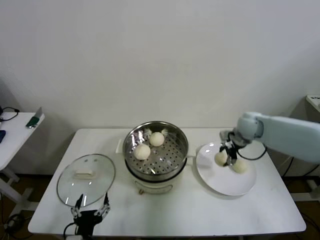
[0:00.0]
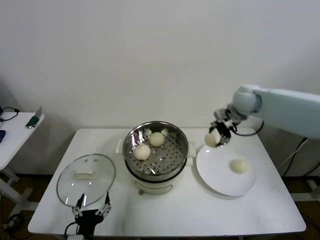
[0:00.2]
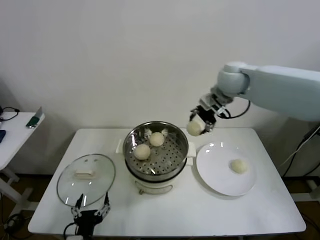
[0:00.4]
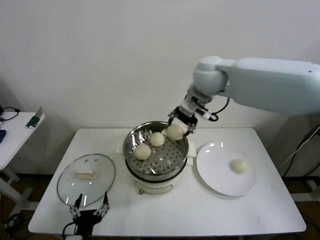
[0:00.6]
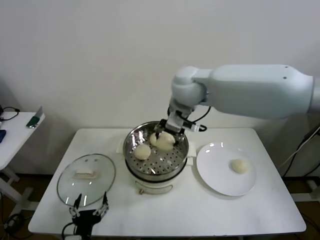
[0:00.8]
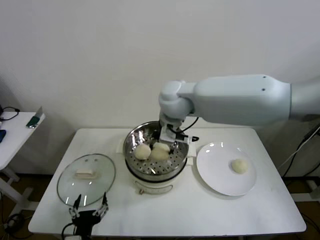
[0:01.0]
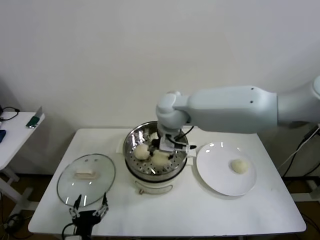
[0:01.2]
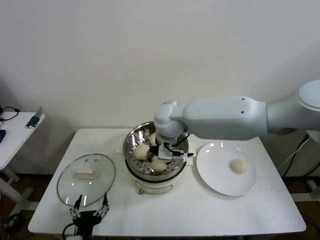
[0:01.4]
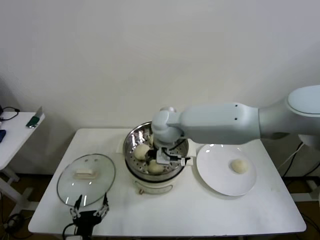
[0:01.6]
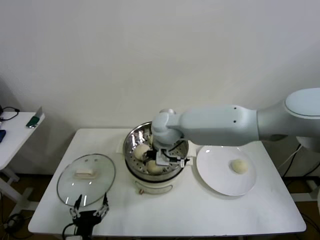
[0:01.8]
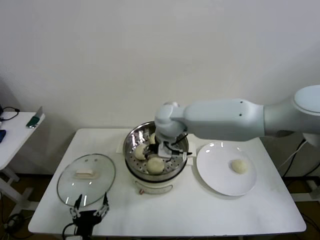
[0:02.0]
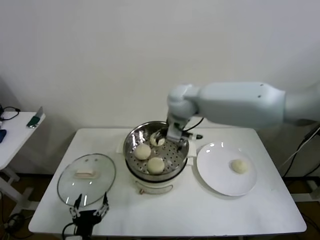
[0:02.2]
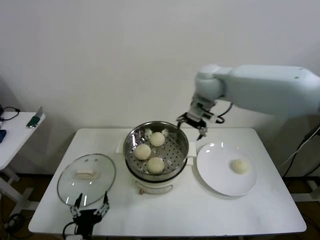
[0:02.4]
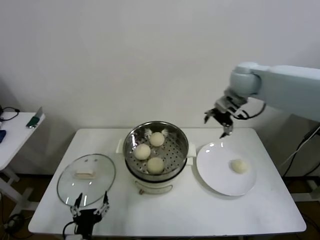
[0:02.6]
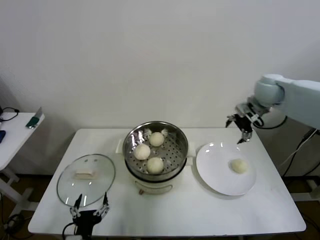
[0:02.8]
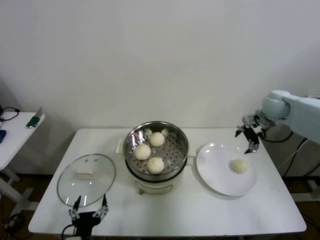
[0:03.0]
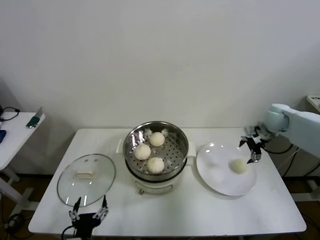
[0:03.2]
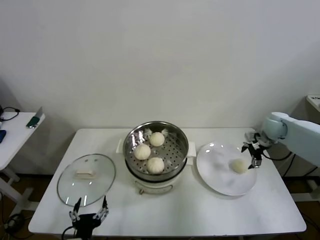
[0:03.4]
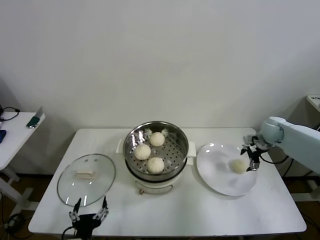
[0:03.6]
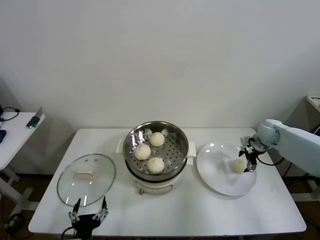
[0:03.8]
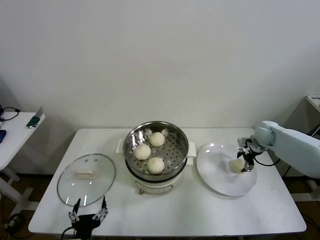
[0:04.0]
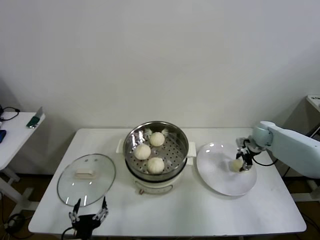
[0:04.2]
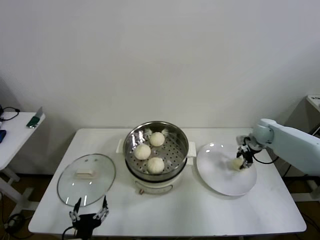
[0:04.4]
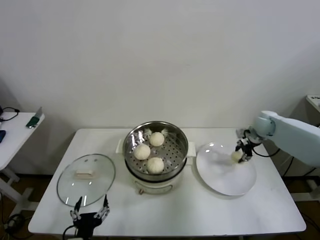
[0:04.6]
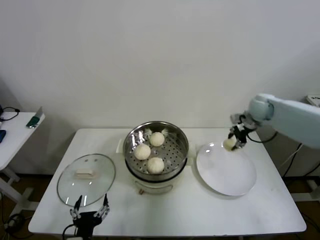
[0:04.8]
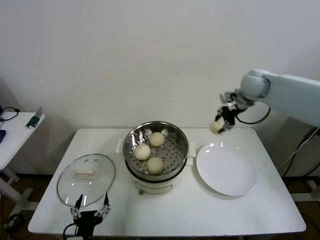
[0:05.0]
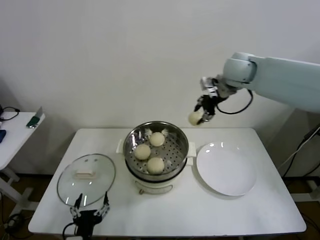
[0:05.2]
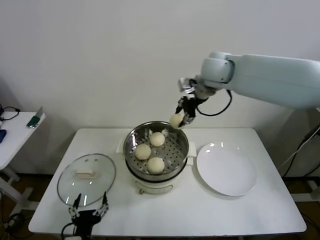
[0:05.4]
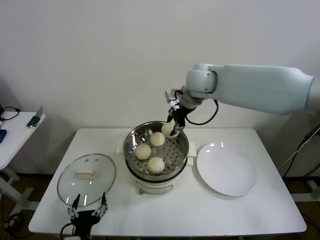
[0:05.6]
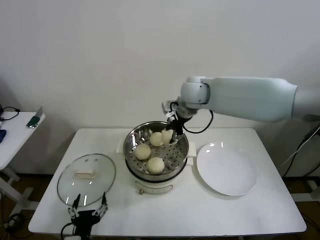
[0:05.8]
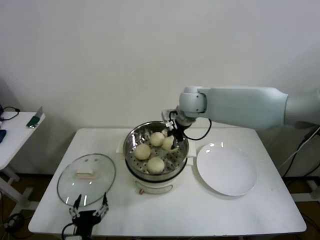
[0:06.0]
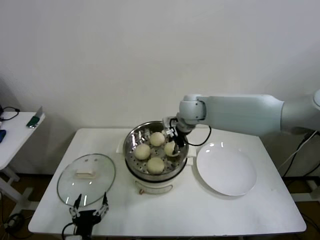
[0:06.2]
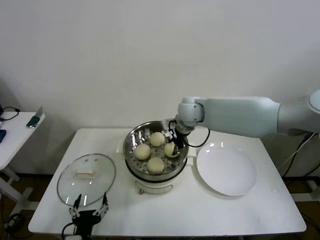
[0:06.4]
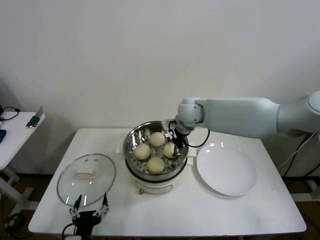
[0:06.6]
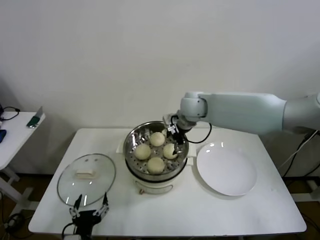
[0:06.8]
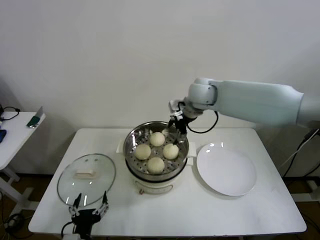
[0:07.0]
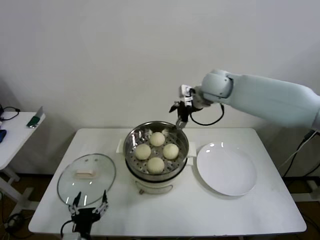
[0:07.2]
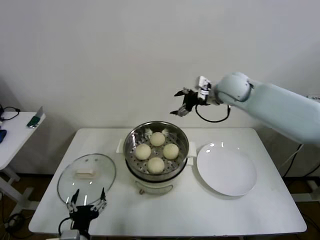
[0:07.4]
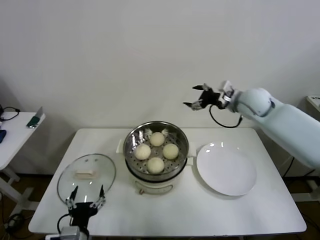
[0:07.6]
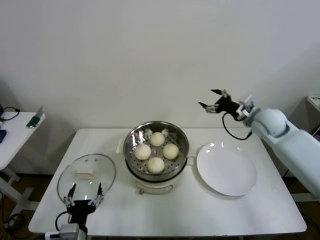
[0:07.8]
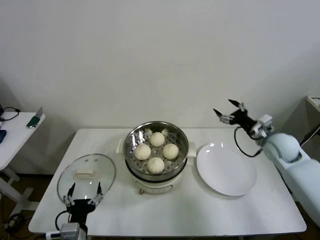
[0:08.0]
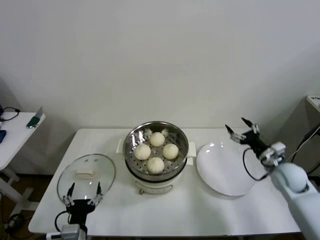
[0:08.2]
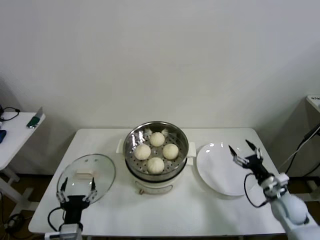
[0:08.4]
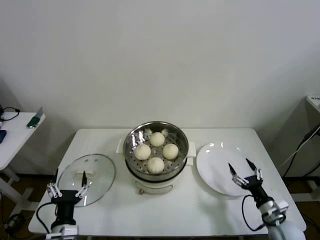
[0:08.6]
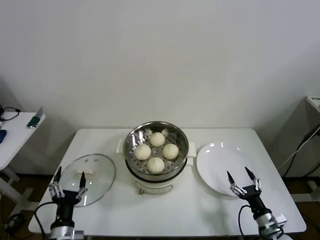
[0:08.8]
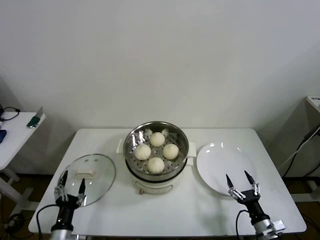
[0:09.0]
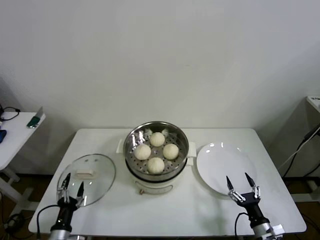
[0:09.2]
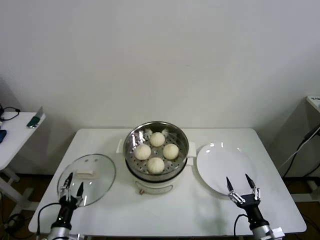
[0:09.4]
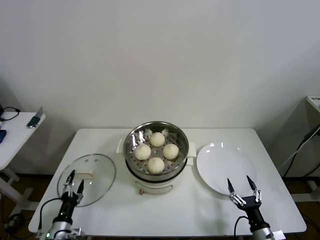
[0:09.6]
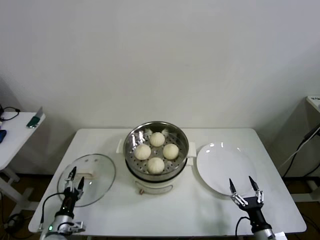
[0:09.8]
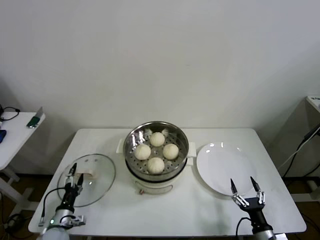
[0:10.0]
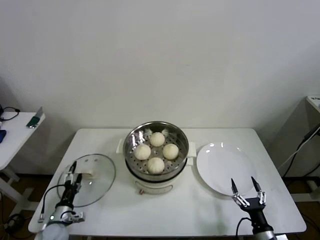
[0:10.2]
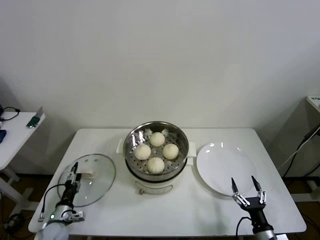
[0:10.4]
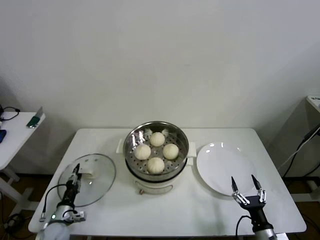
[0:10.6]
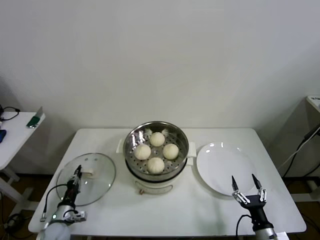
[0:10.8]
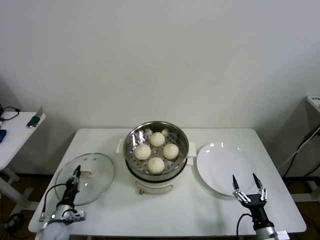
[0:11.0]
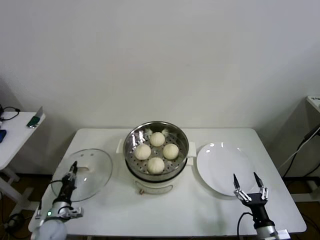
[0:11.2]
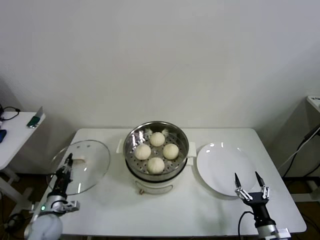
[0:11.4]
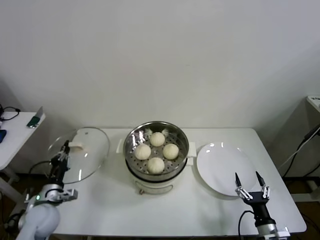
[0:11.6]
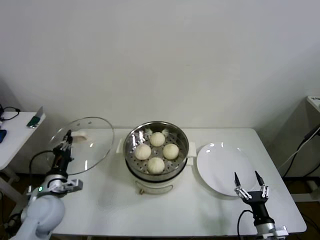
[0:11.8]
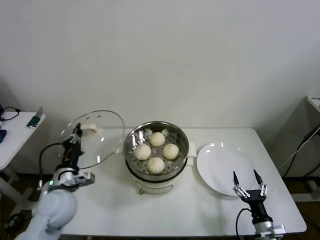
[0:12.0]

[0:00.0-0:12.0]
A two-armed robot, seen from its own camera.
Step, 0:00.0 to 0:01.6: Place the baozi on the steamer with right gripper.
Step, 0:01.8 to 0:04.2: Grasp the baozi in the plate with right gripper.
Step, 0:04.4 to 0:06.6: Place the baozi on the steamer with right gripper.
Step, 0:06.8 to 0:10.8: Grasp the pot lid with left gripper.
0:00.0 to 0:01.6: The right gripper is displaced to the left by approximately 30 cm.
0:01.6 to 0:03.0: The right gripper is displaced to the right by roughly 40 cm, and opens up.
0:03.0 to 0:04.4: The right gripper heads downward, covering approximately 15 cm, and closes.
0:04.4 to 0:06.0: The right gripper heads to the left and upward, covering approximately 35 cm.
0:06.0 to 0:07.6: The right gripper goes roughly 20 cm to the right, and opens.
0:07.6 to 0:09.0: The right gripper is displaced downward and backward by some 50 cm; the left gripper travels to the left and downward by approximately 10 cm.
0:09.0 to 0:10.4: The left gripper moves forward, to the left and downward, approximately 15 cm.
0:10.4 to 0:12.0: The left gripper is displaced upward by some 20 cm, and closes its fingers.

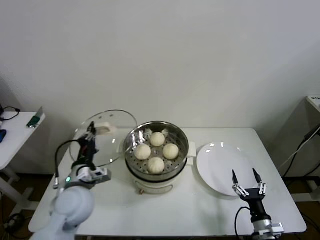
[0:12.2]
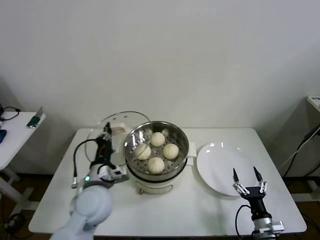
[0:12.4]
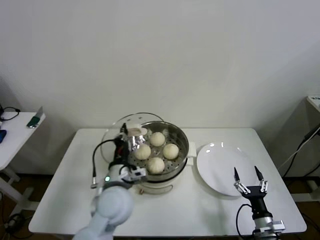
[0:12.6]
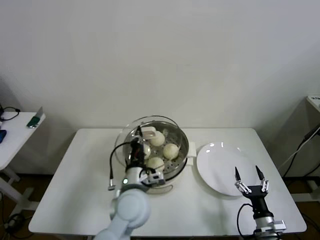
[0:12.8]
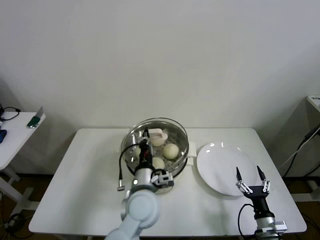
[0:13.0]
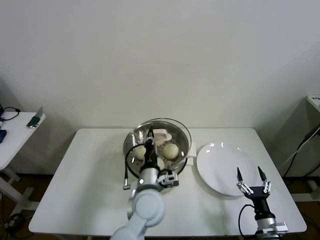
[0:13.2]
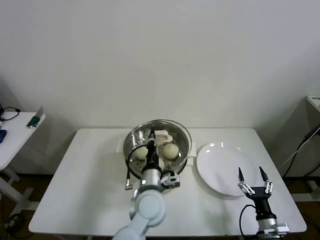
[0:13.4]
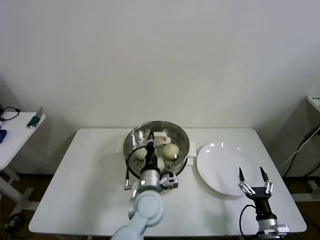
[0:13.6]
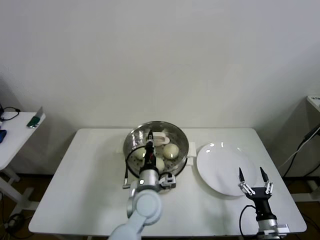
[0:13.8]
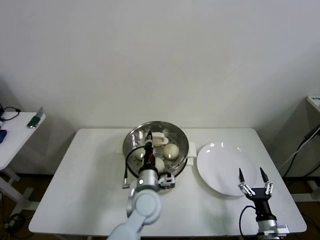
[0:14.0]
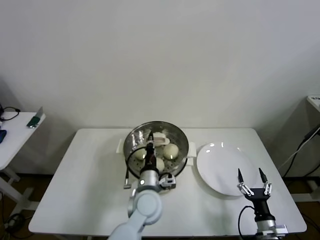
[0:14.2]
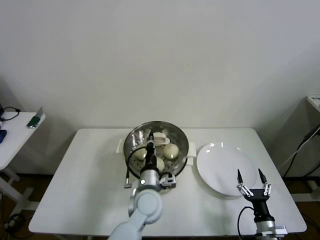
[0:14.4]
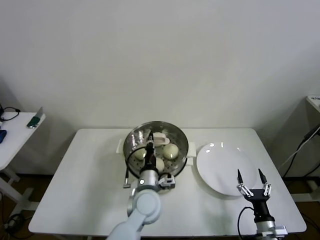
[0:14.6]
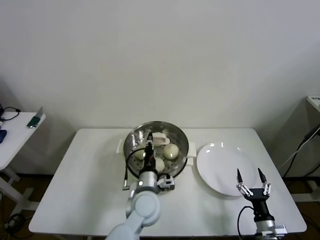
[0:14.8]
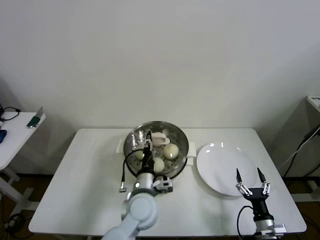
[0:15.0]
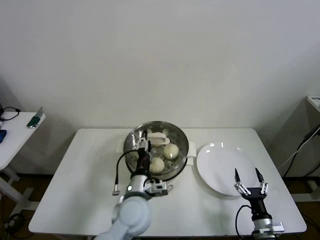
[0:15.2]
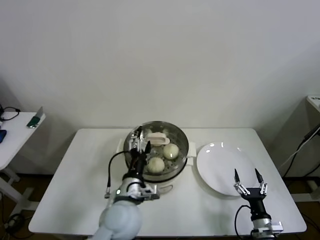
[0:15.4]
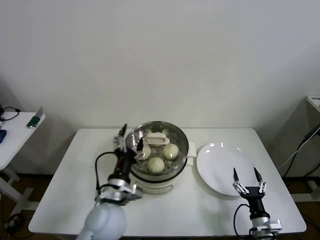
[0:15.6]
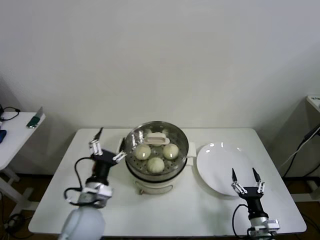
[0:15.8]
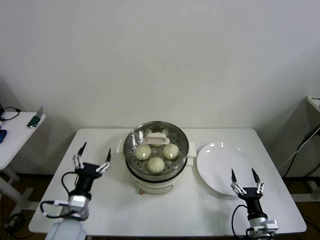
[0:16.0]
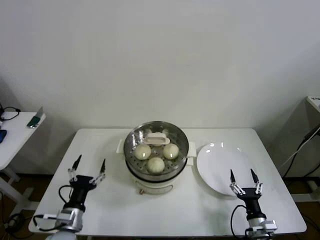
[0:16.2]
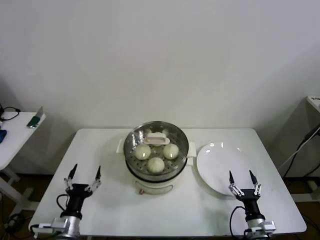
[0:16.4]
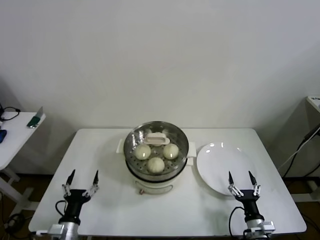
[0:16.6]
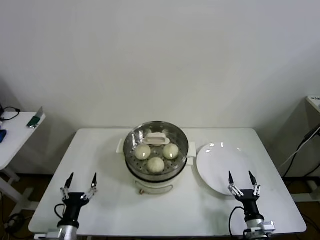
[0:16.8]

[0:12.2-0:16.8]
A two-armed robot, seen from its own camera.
Step, 0:12.2 to 0:14.8: Place the pot lid on the steamer with left gripper.
0:12.2 to 0:13.8: The left gripper travels to the right by roughly 20 cm.
0:13.8 to 0:15.2: The left gripper opens its fingers.
0:15.2 to 0:16.8: The left gripper travels to the left, downward and backward by approximately 30 cm, and opens.

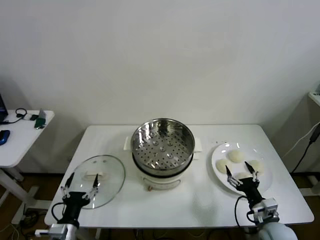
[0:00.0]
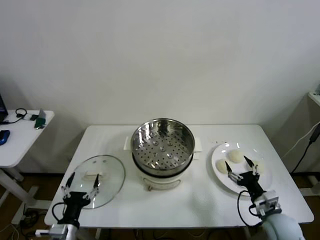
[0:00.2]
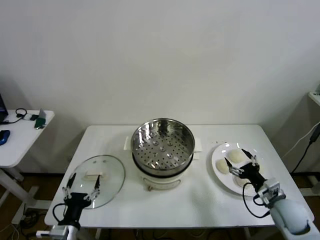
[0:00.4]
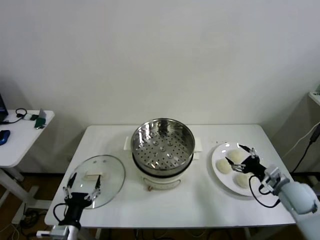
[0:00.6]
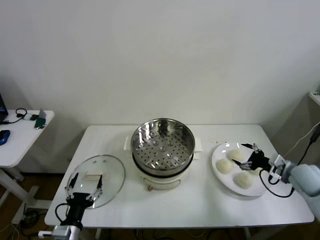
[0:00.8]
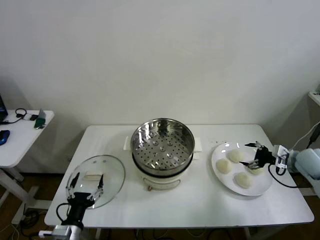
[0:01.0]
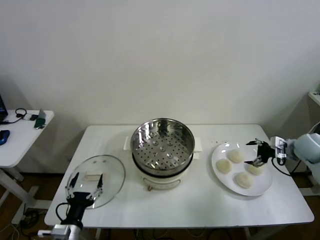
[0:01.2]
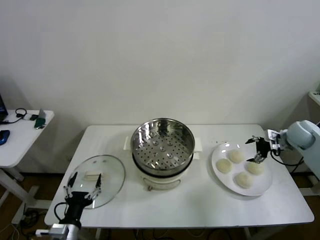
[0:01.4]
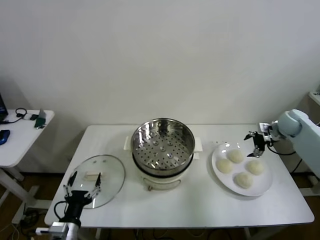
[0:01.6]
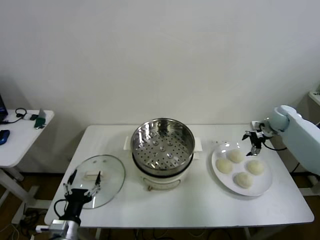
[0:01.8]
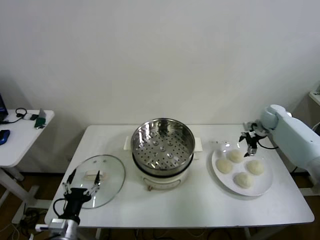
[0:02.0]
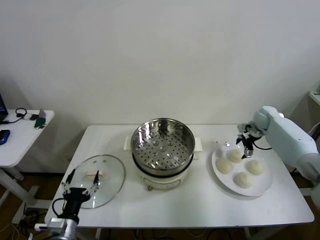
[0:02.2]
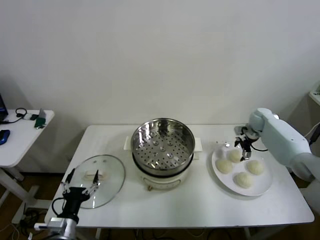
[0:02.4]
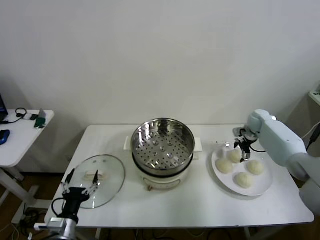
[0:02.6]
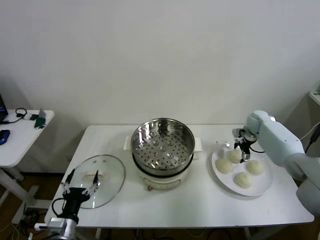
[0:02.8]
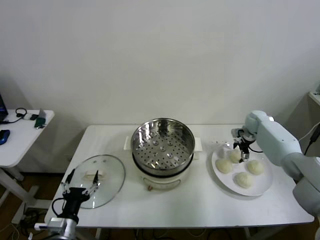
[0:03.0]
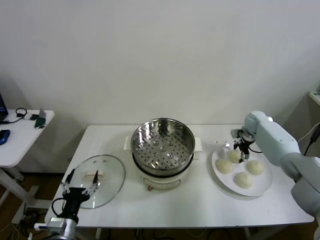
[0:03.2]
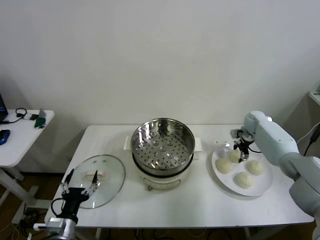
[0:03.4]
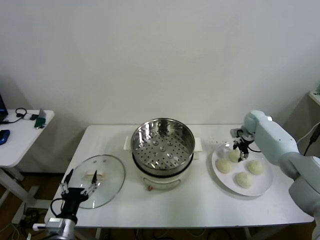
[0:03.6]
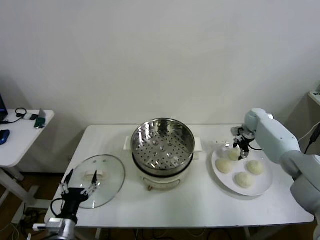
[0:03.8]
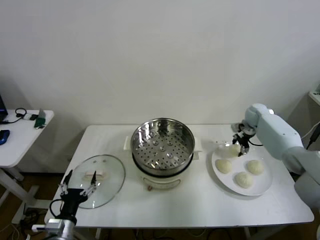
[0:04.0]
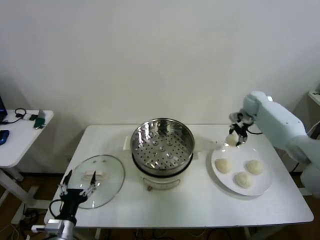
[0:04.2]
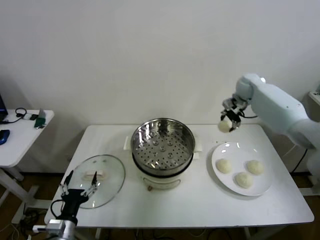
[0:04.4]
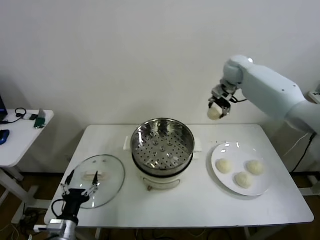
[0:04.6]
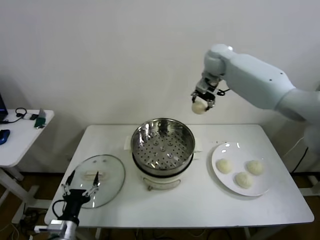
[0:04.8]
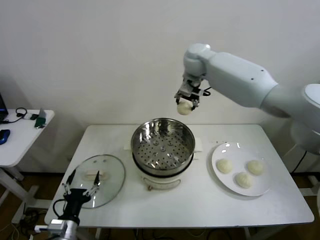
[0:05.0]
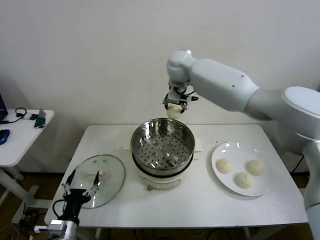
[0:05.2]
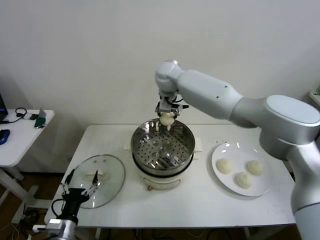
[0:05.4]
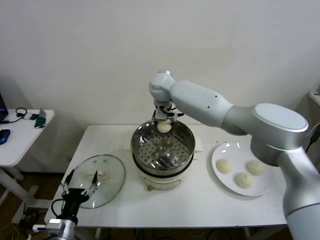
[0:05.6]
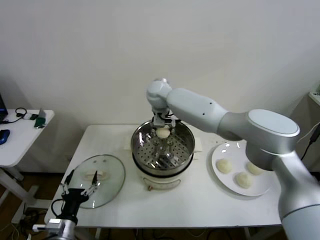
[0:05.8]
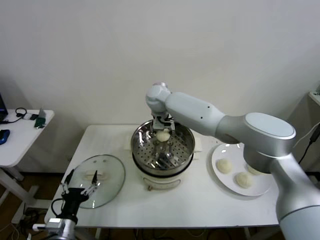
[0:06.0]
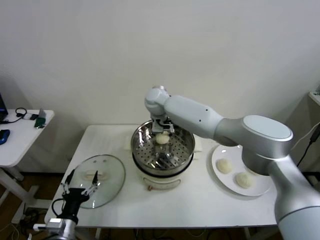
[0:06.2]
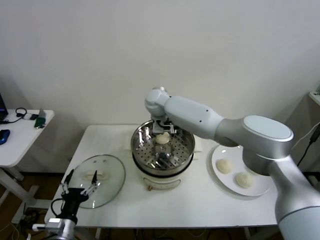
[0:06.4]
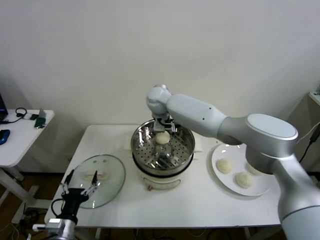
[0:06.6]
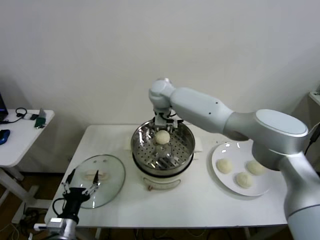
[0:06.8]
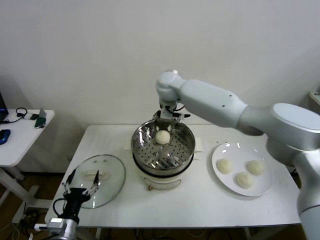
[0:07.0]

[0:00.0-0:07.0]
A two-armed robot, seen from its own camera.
Step, 0:00.0 to 0:03.4: Grasp the baozi in the plate with right gripper.
Step, 0:03.6 to 0:06.4: Place the baozi on the steamer with right gripper.
0:01.4 to 0:02.8: The right gripper shifts roughly 15 cm forward, to the left and downward.
0:02.8 to 0:04.2: The right gripper heads upward, covering approximately 10 cm, and closes.
0:04.2 to 0:05.6: The right gripper is displaced to the left by approximately 35 cm.
0:05.6 to 0:07.0: The right gripper goes roughly 5 cm to the right, and opens.
